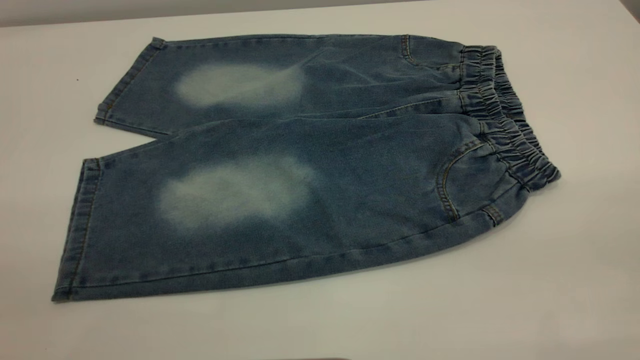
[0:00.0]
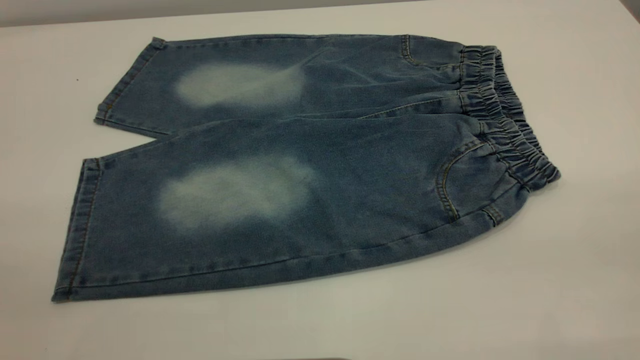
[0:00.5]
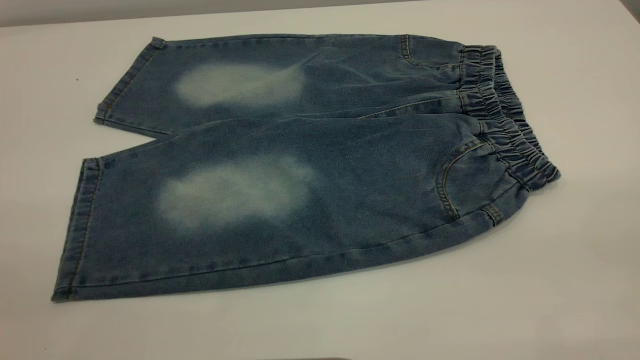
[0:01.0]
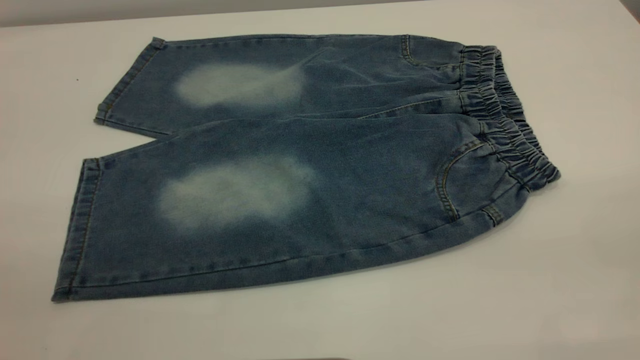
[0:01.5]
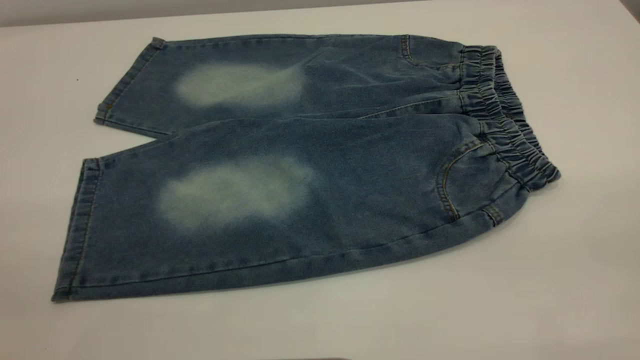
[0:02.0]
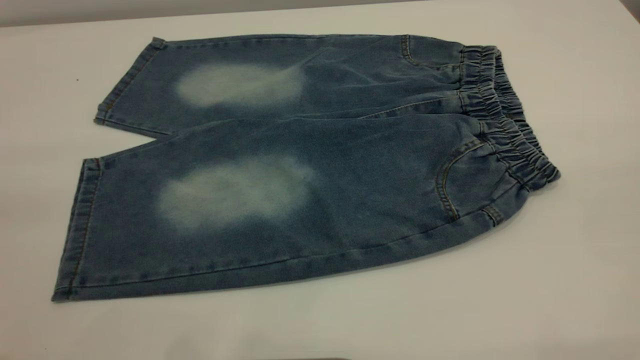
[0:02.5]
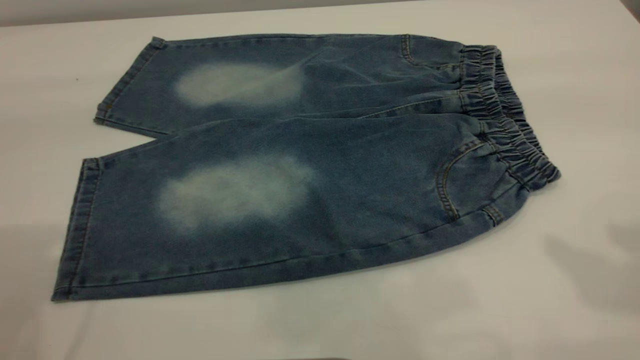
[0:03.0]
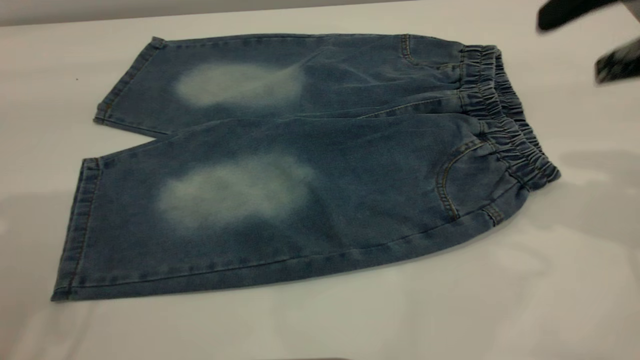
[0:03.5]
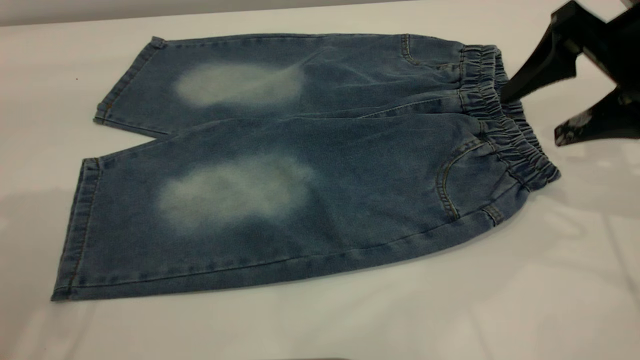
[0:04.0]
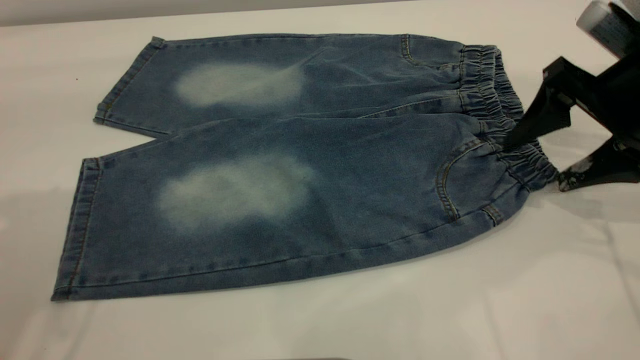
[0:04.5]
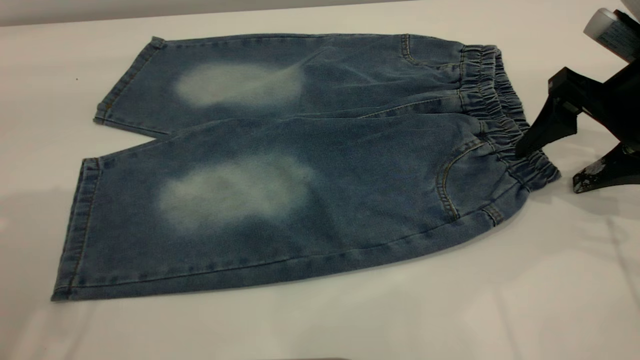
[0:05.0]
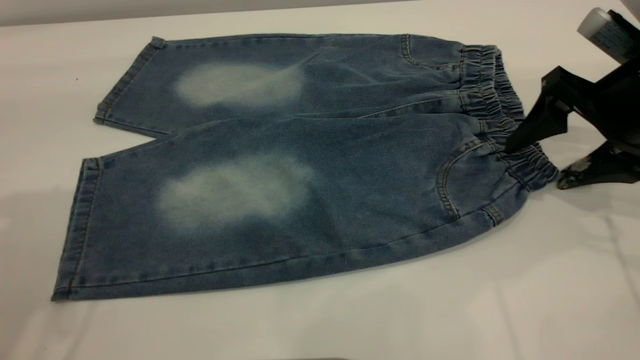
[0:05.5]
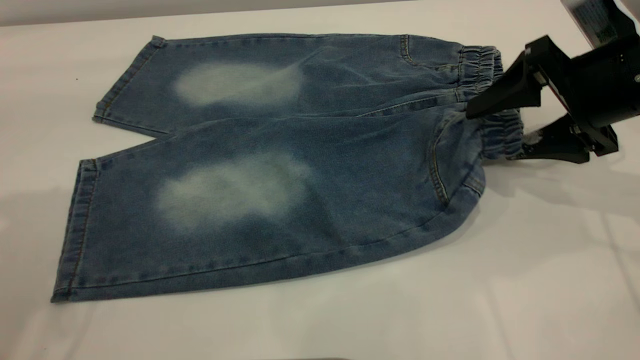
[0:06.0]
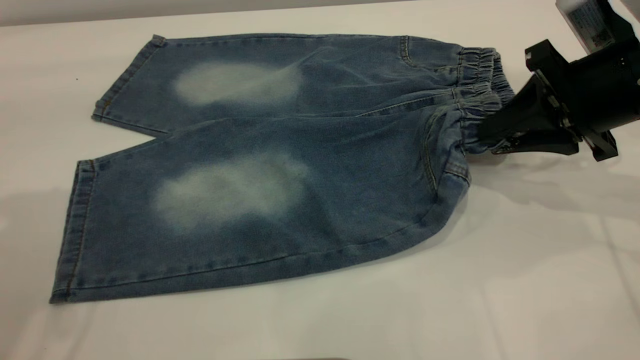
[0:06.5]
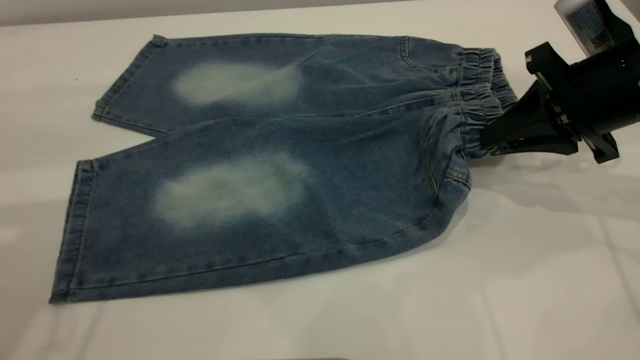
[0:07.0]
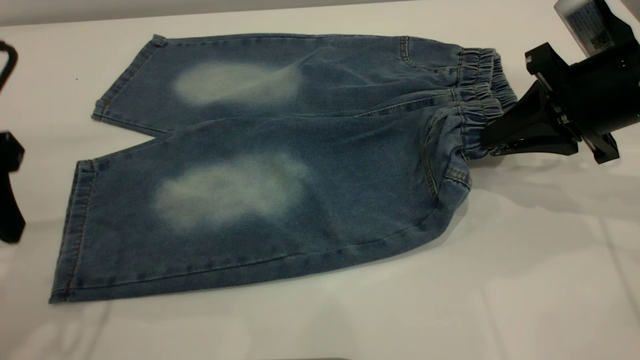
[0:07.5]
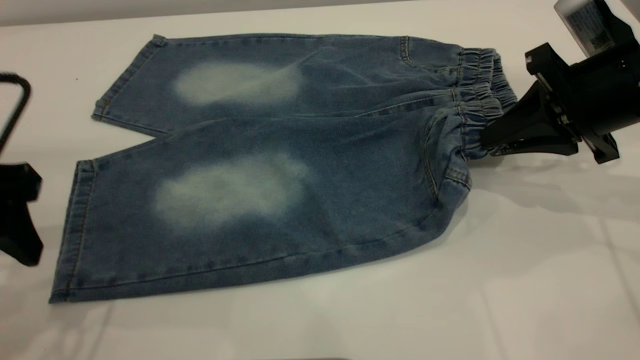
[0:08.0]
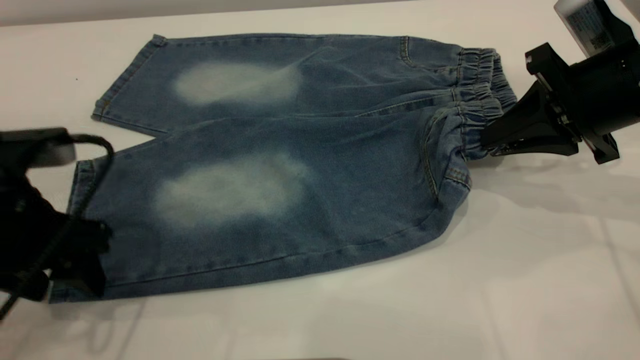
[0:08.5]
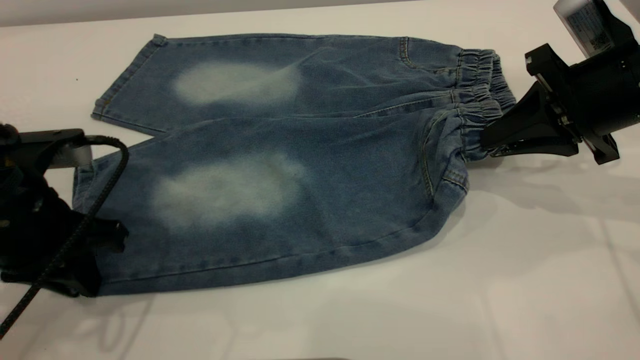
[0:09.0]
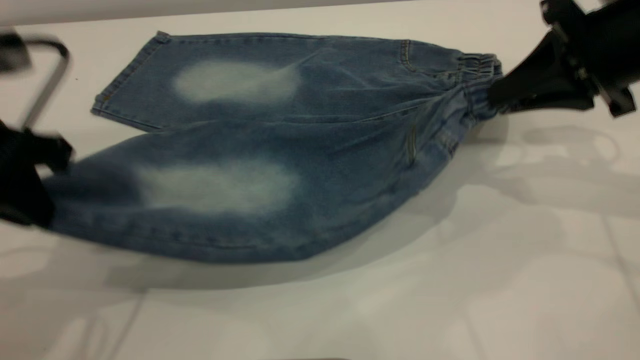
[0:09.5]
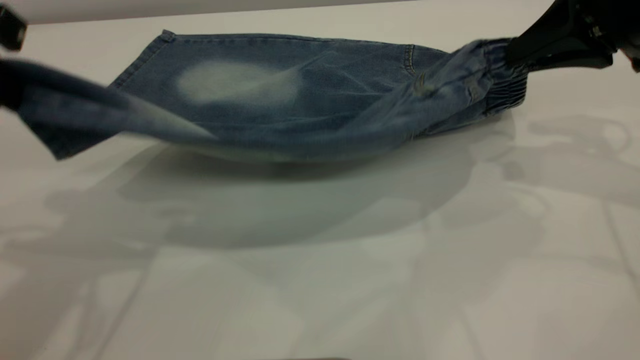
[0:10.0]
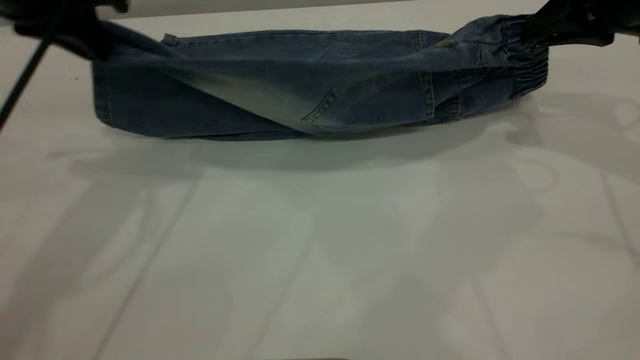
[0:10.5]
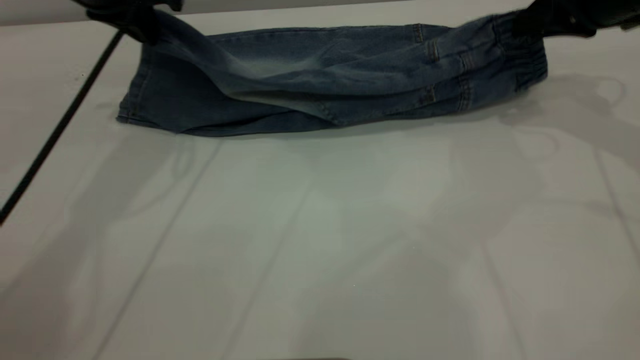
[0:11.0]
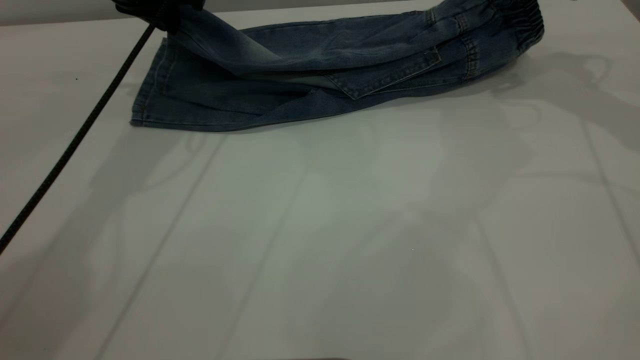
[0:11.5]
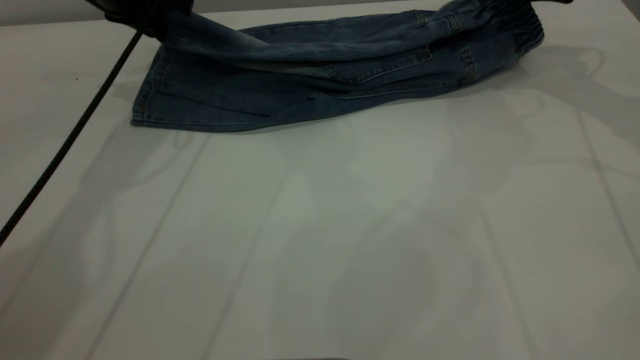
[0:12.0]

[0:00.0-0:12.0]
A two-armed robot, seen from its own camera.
0:00.0 to 0:02.0: The two grippers keep their place.
0:02.0 to 0:04.0: The right gripper moves forward and downward, about 35 cm.
0:04.0 to 0:06.0: The grippers move only a little.
0:06.0 to 0:08.0: The left gripper is displaced downward by about 15 cm, while the right gripper closes.
0:08.0 to 0:10.0: The two grippers go approximately 10 cm upward. The left gripper closes.
0:10.0 to 0:12.0: The left gripper shifts roughly 20 cm forward; the right gripper goes about 15 cm forward.

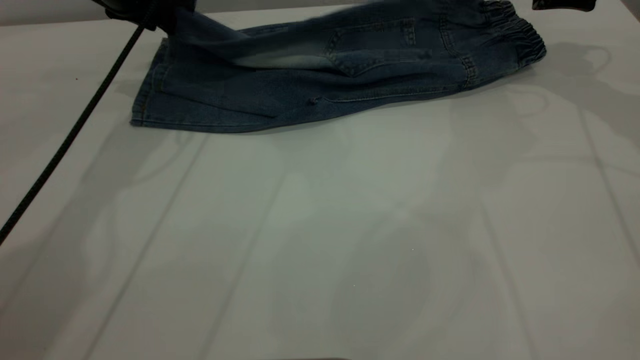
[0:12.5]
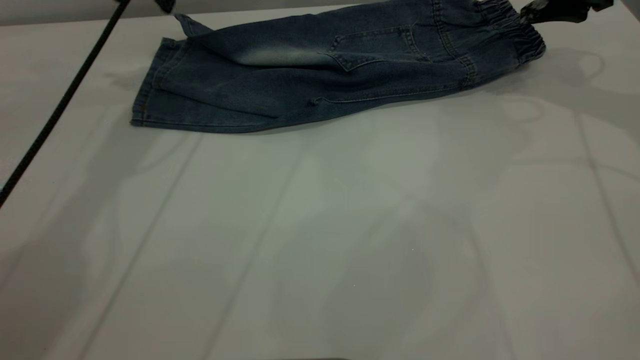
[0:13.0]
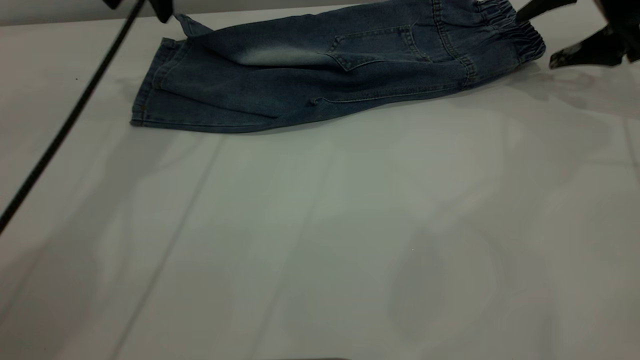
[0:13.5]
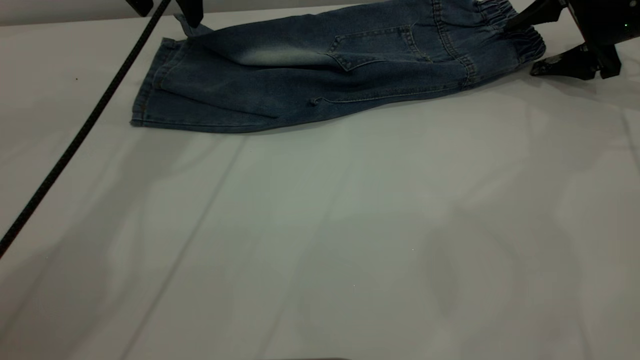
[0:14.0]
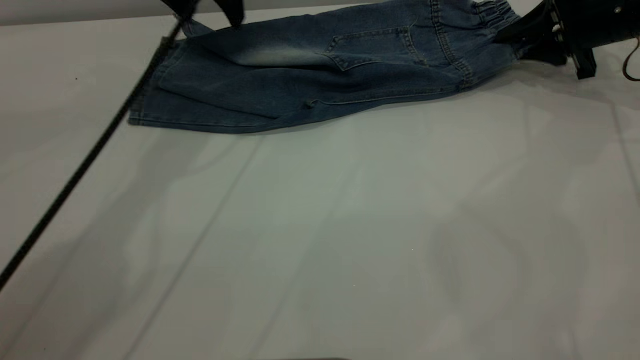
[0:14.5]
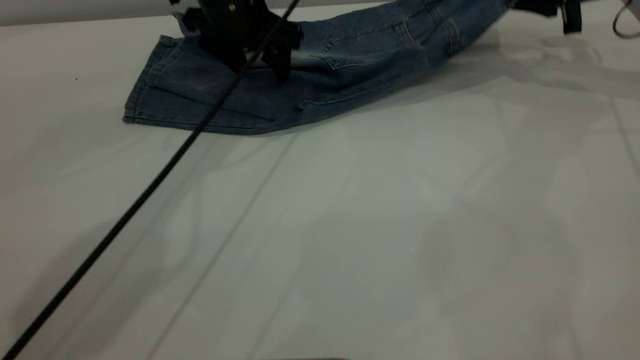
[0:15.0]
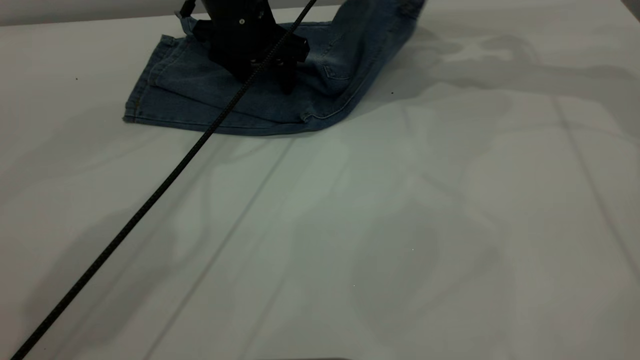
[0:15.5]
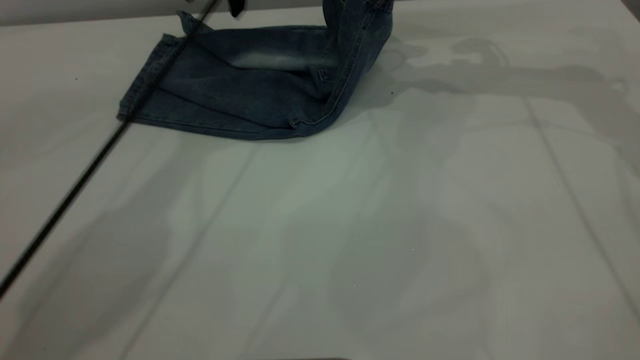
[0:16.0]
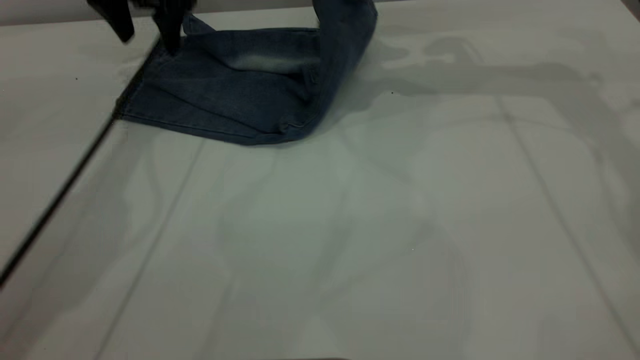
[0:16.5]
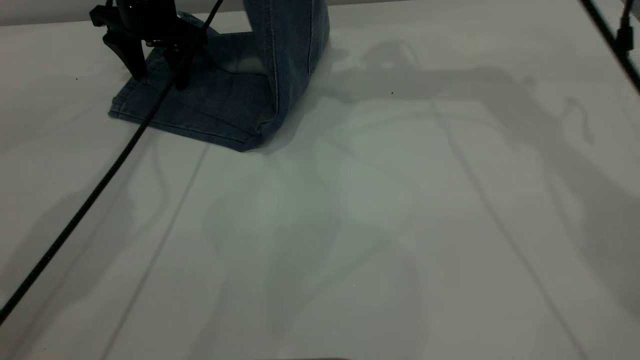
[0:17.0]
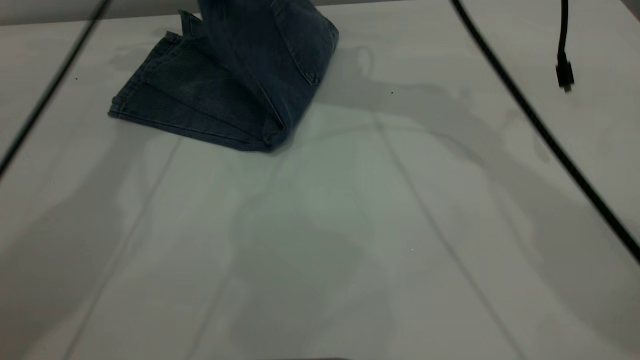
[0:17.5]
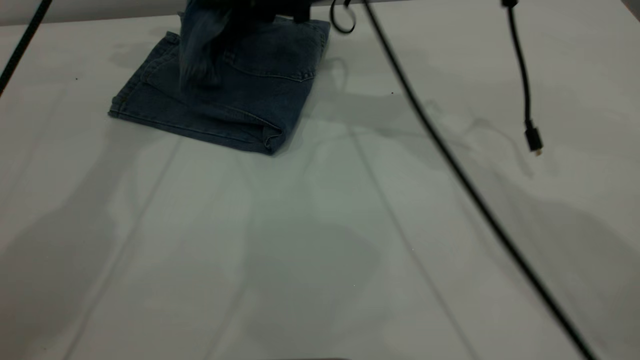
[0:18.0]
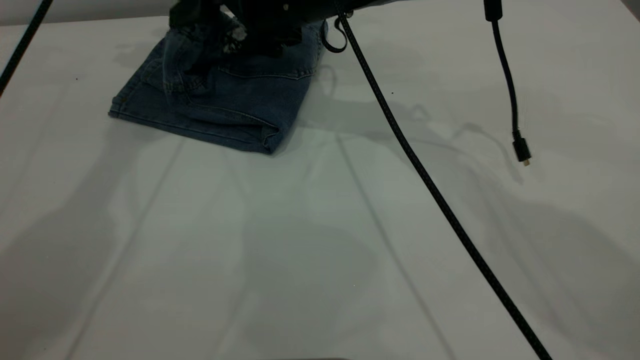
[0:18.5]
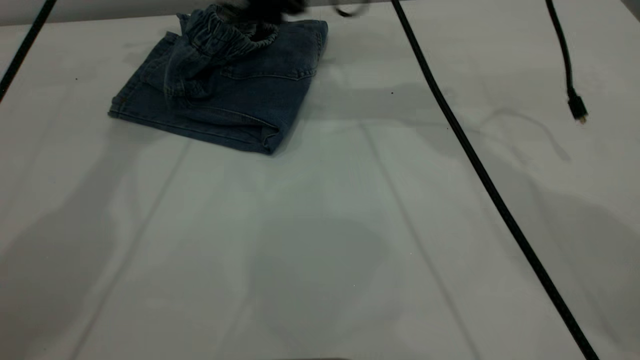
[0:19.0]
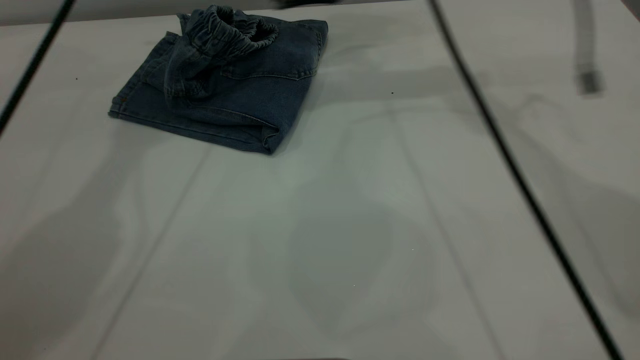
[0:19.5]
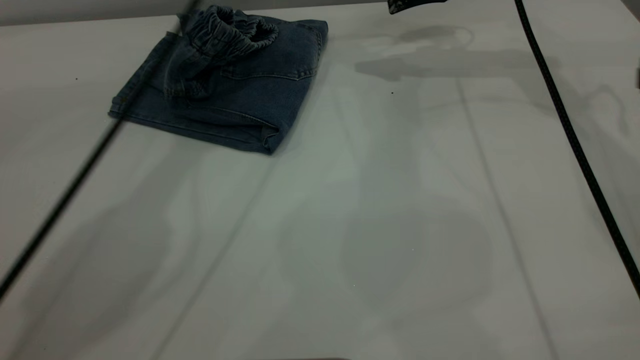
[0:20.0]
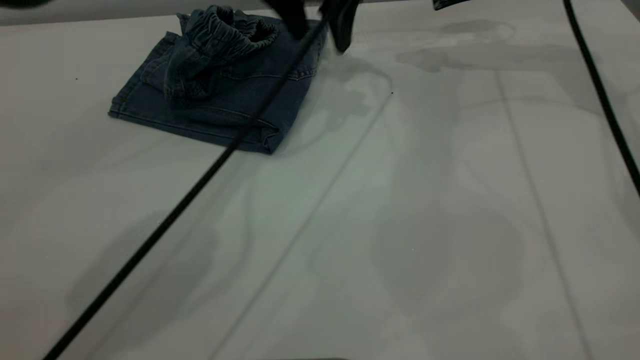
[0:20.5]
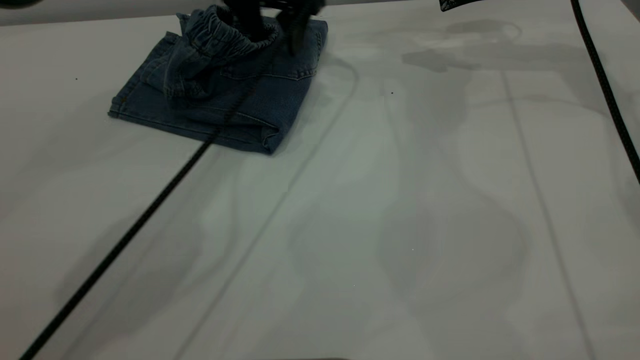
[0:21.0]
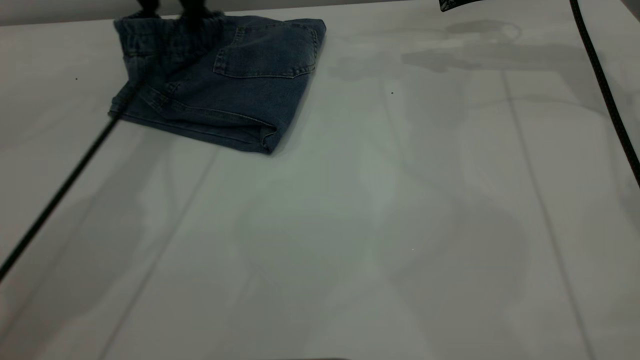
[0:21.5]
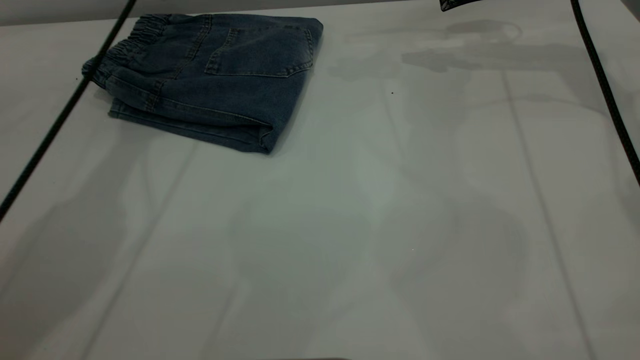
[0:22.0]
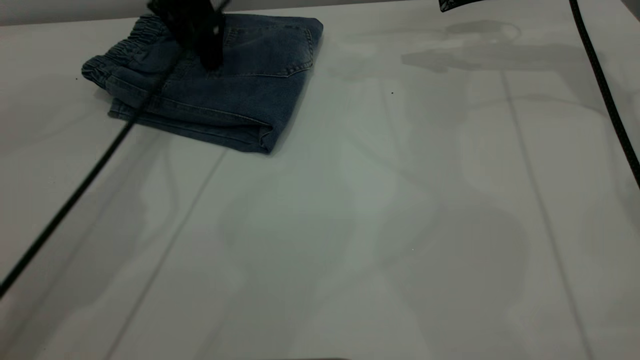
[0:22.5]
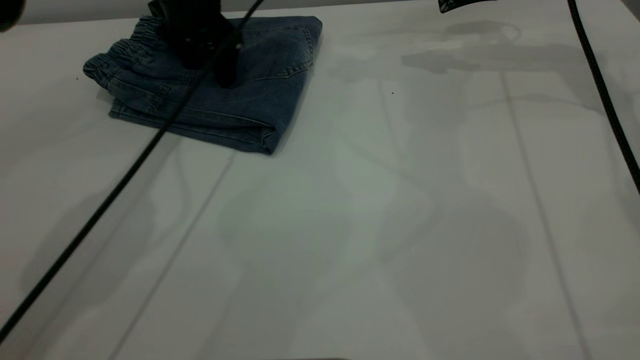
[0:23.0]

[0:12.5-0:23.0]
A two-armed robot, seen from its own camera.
Step, 0:13.5 to 0:19.5: Fold your pants from right to left.
0:12.5 to 0:14.5: The right gripper goes roughly 5 cm downward, and closes up. Meanwhile the left gripper moves to the right, roughly 10 cm, and opens up.
0:14.5 to 0:16.5: The right gripper travels to the left and upward by about 20 cm, while the left gripper shifts roughly 10 cm to the left and forward.
0:16.5 to 0:19.0: The right gripper shifts roughly 20 cm to the left, and opens its fingers. The left gripper shifts about 15 cm upward.
0:19.0 to 0:21.0: The left gripper travels downward and to the right by approximately 20 cm, while the right gripper moves to the right, approximately 25 cm.
0:21.0 to 0:23.0: The left gripper shifts about 10 cm to the left and downward.
